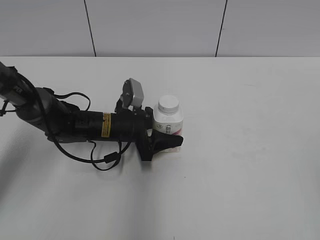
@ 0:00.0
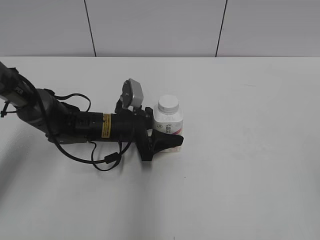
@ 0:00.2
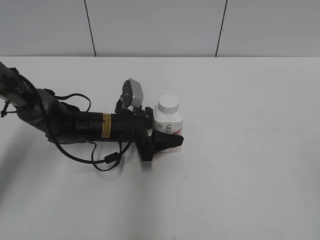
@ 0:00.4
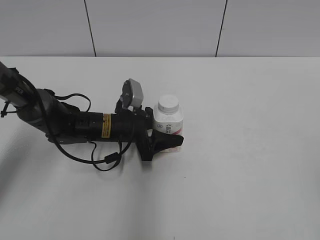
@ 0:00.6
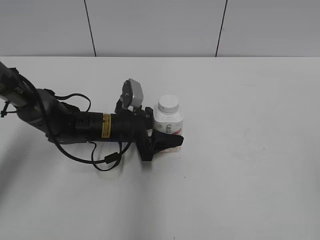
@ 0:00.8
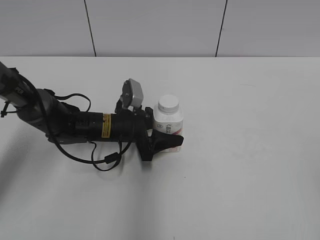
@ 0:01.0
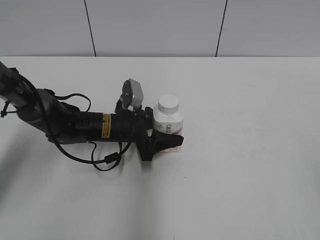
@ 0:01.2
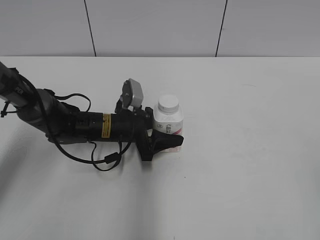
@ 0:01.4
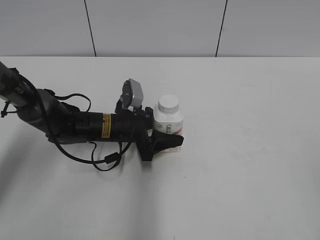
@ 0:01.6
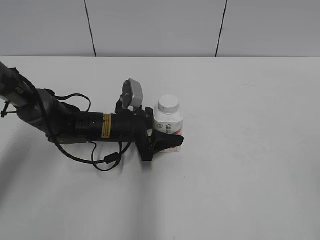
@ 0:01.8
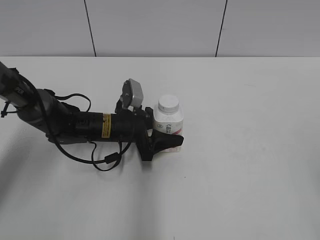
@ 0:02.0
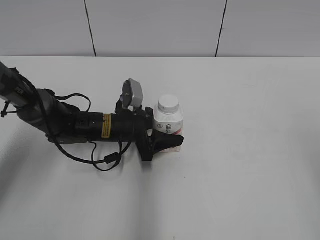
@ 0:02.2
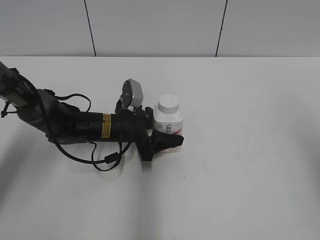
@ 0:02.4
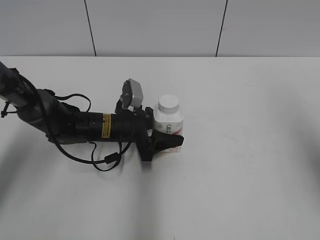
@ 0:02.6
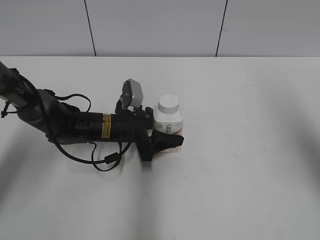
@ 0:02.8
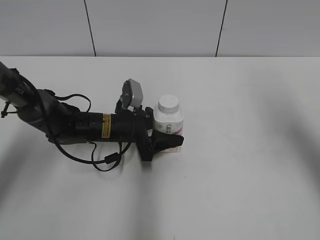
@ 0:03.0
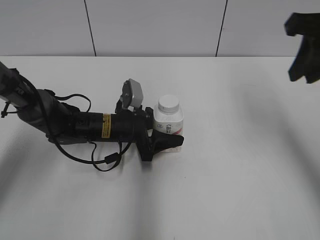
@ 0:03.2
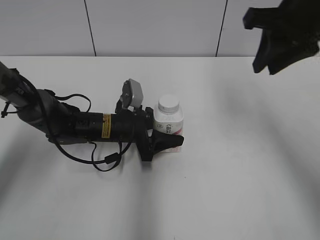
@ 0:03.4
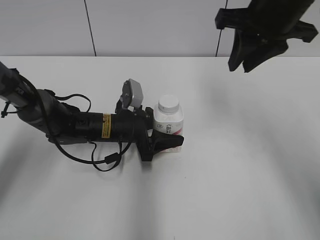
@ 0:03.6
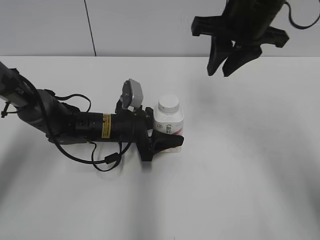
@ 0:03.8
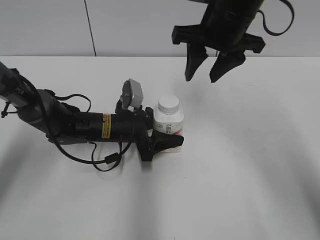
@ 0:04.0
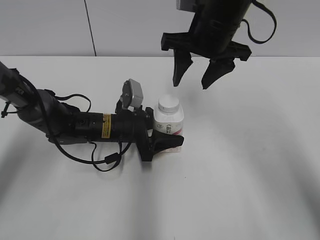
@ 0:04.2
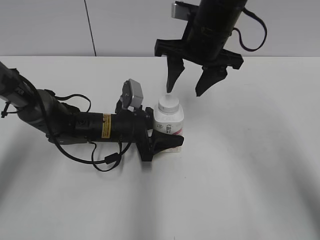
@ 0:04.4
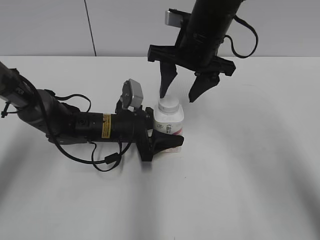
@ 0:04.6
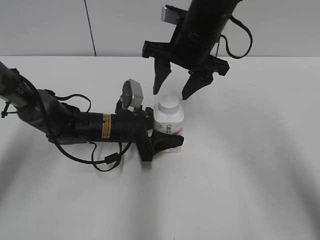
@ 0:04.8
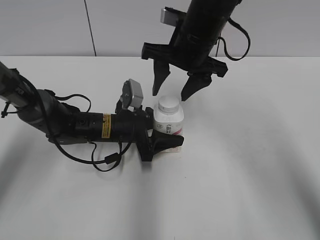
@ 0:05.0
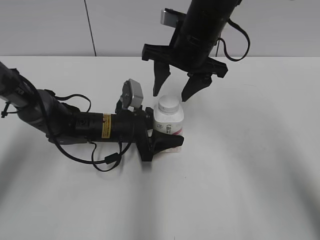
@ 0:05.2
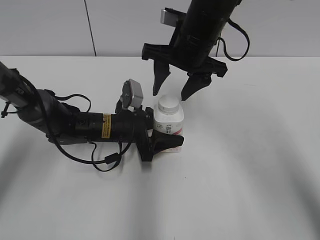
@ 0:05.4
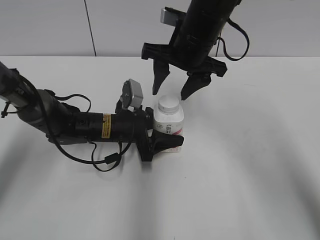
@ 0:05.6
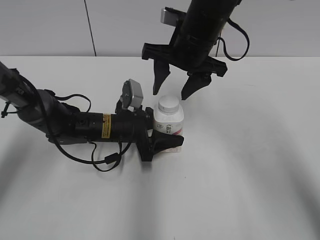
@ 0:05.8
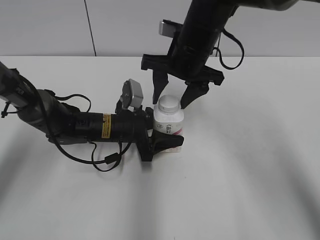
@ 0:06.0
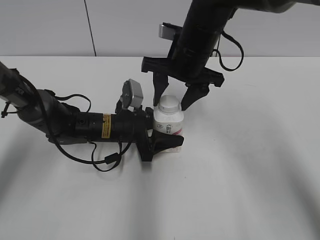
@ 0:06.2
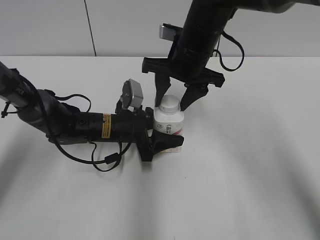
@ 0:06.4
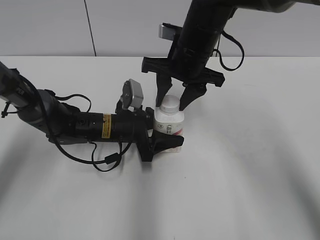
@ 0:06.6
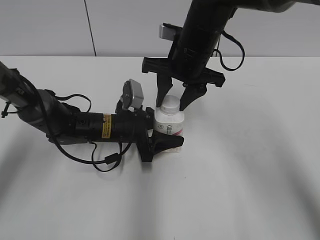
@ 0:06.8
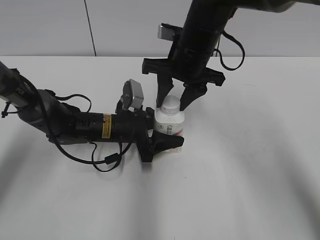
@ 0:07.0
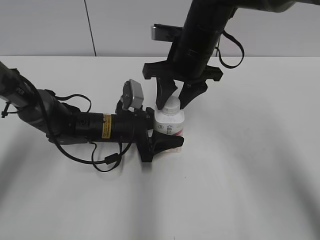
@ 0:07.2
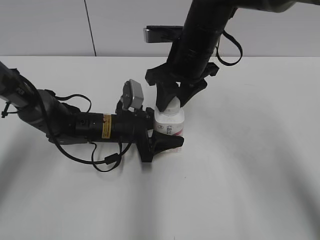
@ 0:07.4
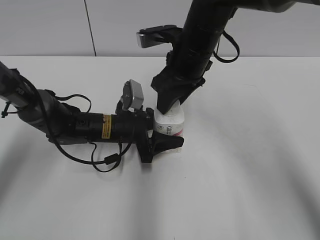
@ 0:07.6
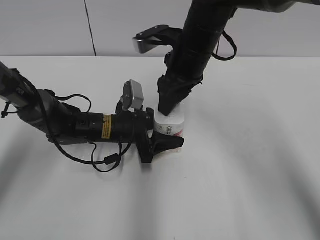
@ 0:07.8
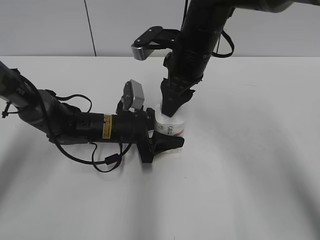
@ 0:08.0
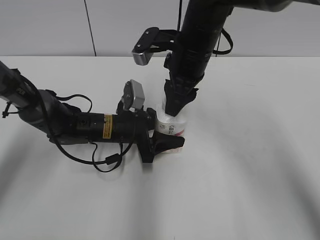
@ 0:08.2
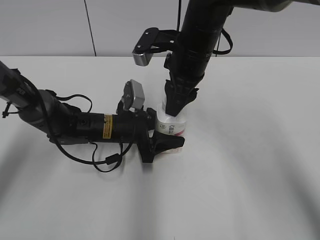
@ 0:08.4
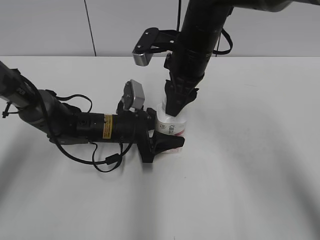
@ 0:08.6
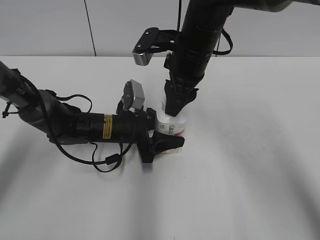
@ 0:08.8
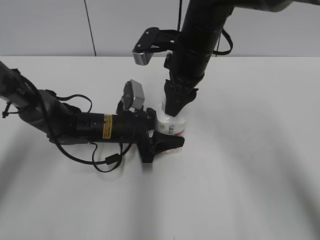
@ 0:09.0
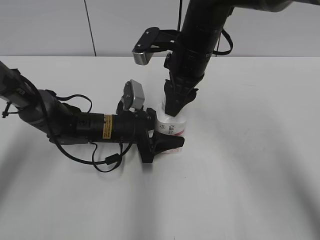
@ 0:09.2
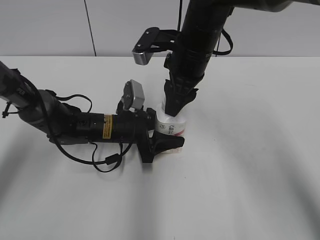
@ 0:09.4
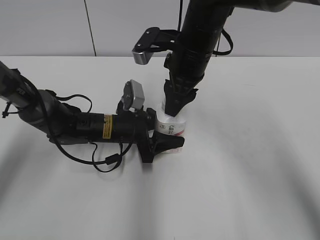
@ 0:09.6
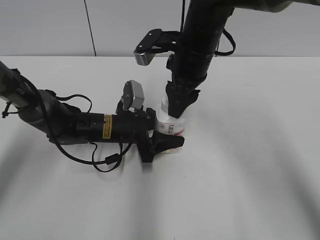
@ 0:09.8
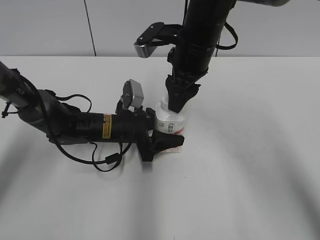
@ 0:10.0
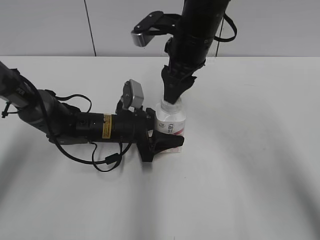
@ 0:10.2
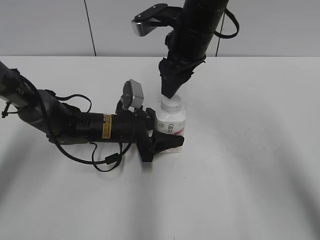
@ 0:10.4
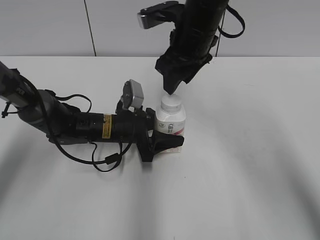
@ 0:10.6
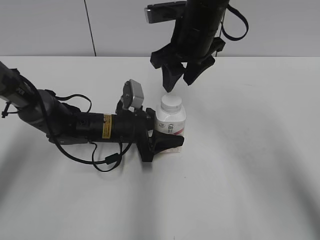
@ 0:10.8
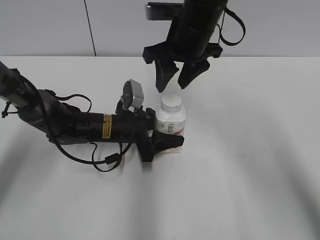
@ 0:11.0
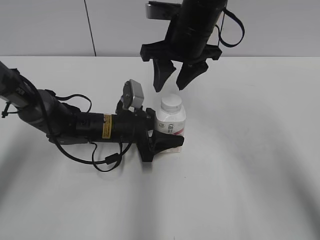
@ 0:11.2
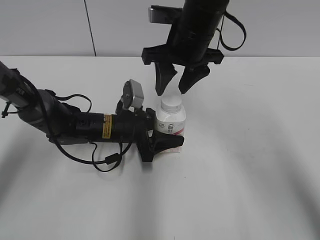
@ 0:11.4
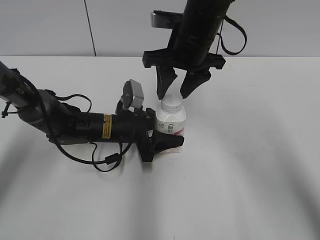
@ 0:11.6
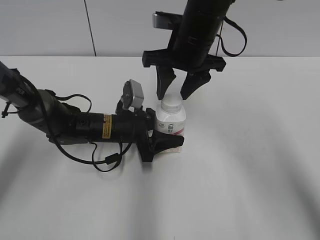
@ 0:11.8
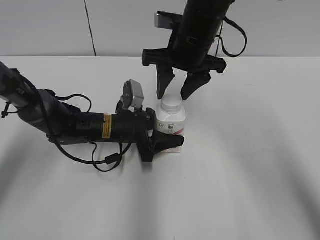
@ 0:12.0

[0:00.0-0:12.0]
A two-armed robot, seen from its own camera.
0:00.0 to 0:01.6: There are only small adjustments of the grippers.
0:01.6 to 0:03.0: The right gripper travels forward by roughly 25 cm, and closes.
0:03.0 to 0:04.4: The right gripper travels to the left, forward and downward by some 25 cm, and opens.
0:04.4 to 0:06.0: The grippers move only a little.
0:09.0 to 0:10.4: There are only small adjustments of the grippers.

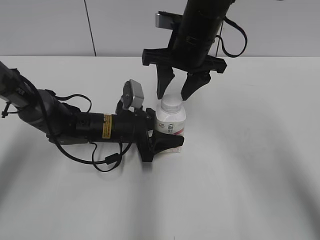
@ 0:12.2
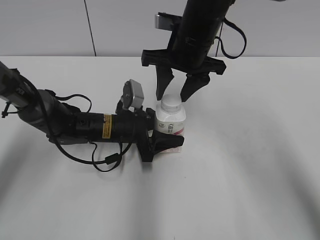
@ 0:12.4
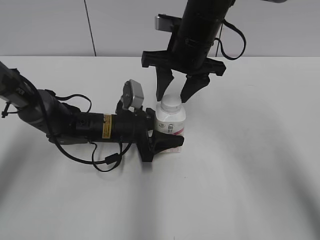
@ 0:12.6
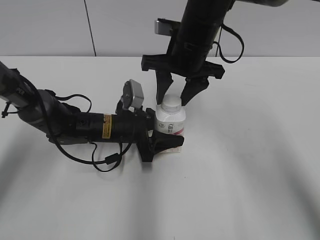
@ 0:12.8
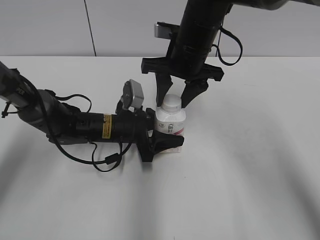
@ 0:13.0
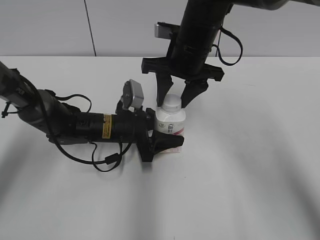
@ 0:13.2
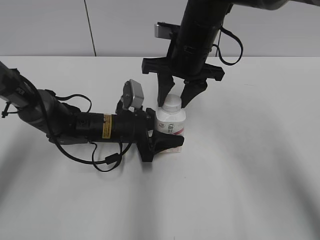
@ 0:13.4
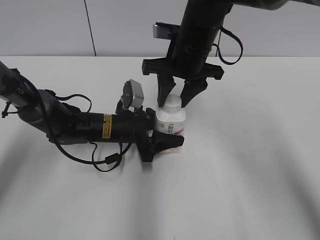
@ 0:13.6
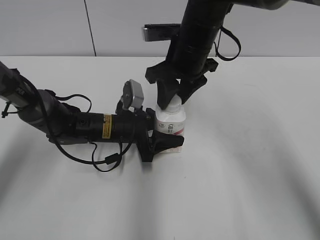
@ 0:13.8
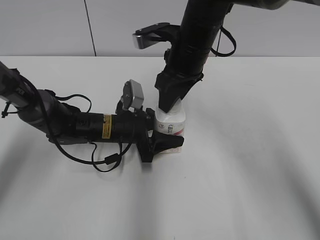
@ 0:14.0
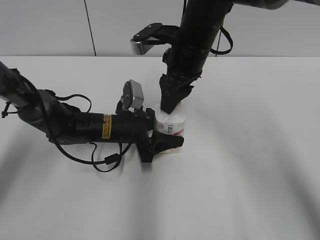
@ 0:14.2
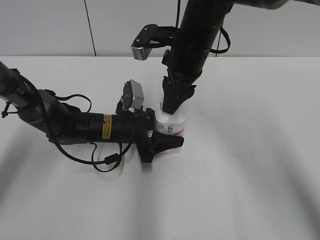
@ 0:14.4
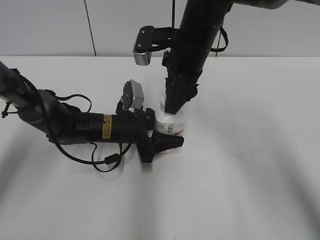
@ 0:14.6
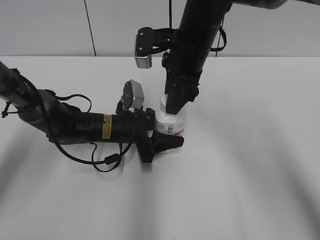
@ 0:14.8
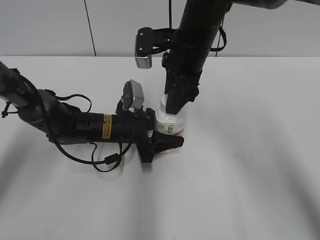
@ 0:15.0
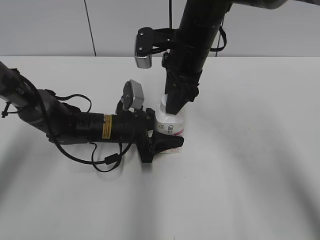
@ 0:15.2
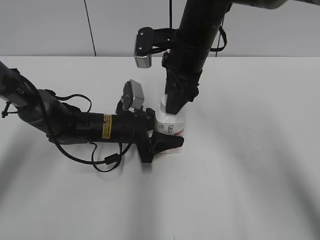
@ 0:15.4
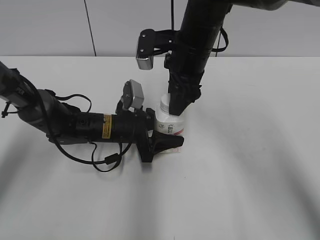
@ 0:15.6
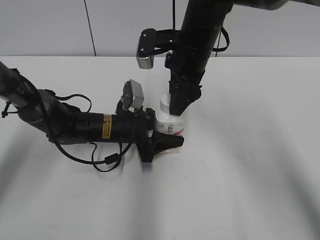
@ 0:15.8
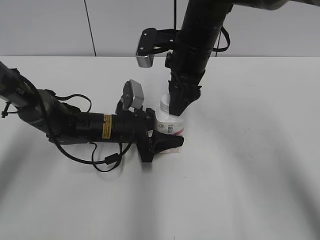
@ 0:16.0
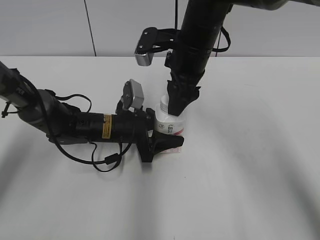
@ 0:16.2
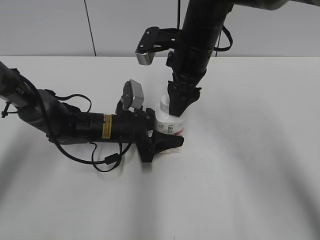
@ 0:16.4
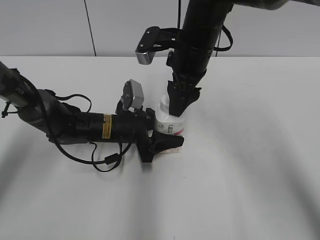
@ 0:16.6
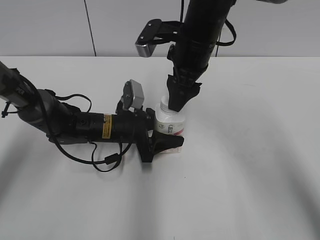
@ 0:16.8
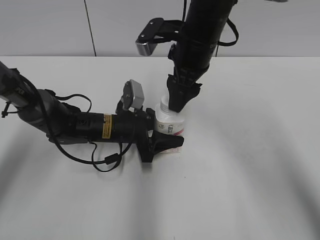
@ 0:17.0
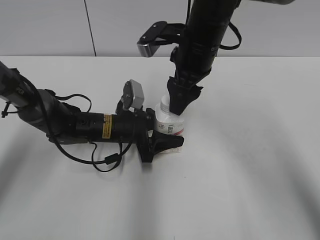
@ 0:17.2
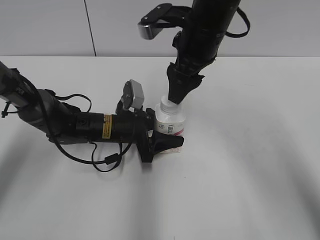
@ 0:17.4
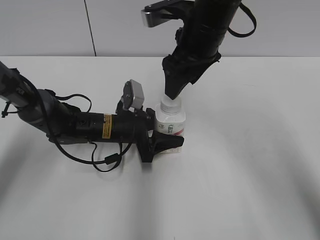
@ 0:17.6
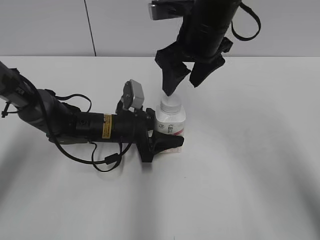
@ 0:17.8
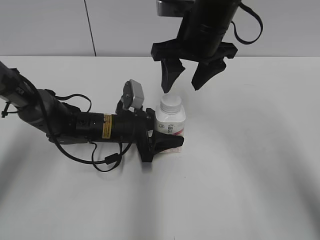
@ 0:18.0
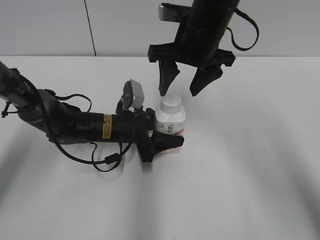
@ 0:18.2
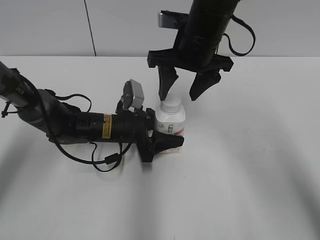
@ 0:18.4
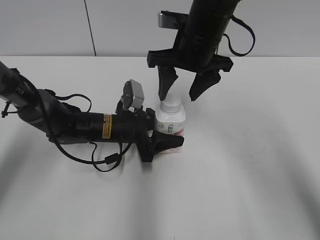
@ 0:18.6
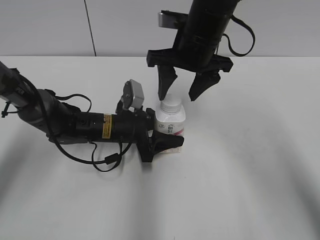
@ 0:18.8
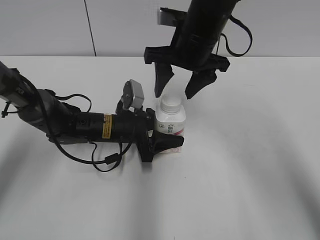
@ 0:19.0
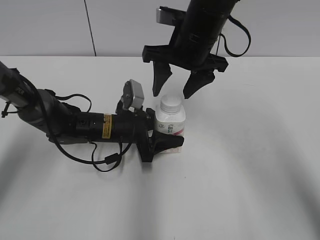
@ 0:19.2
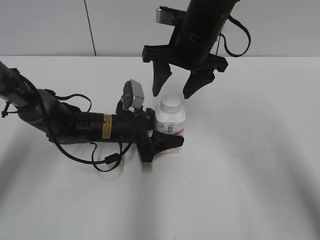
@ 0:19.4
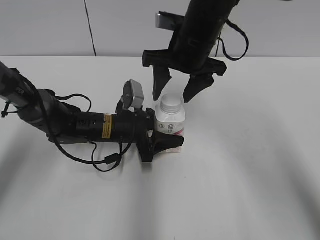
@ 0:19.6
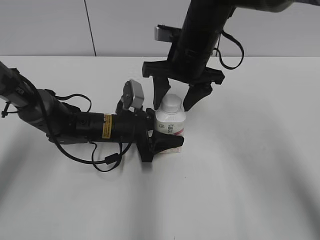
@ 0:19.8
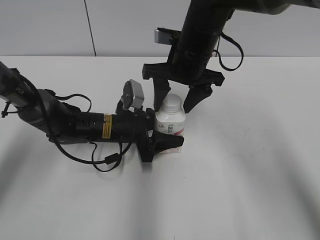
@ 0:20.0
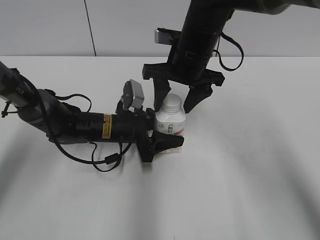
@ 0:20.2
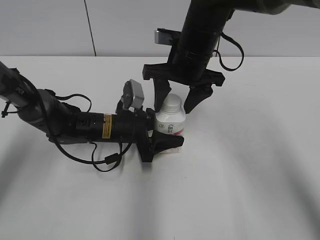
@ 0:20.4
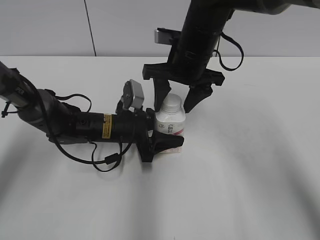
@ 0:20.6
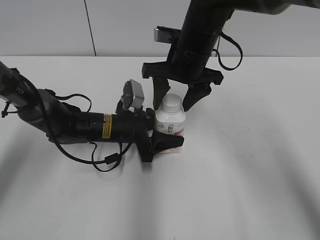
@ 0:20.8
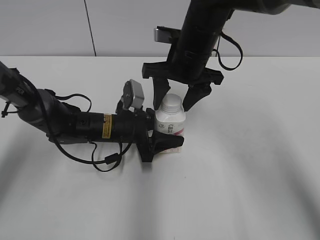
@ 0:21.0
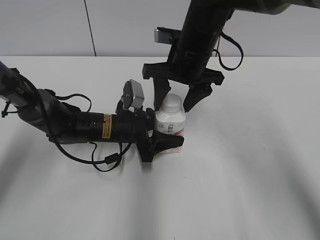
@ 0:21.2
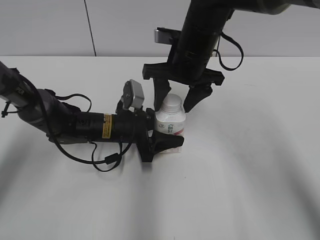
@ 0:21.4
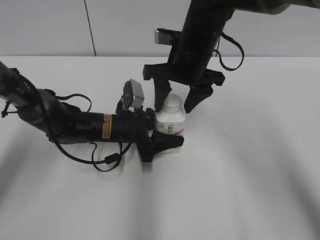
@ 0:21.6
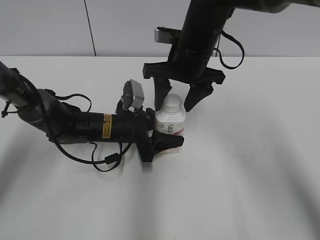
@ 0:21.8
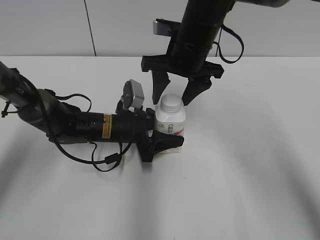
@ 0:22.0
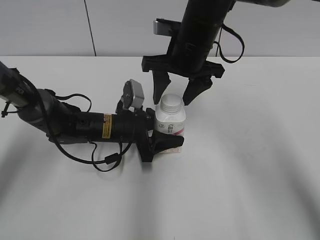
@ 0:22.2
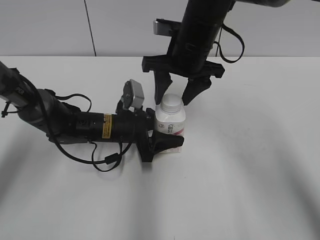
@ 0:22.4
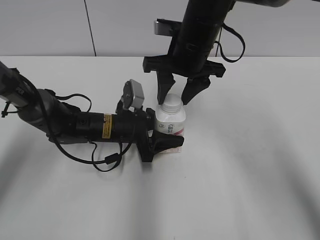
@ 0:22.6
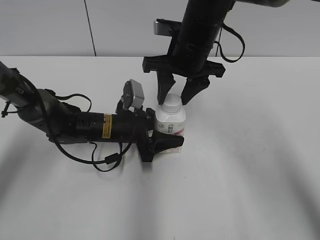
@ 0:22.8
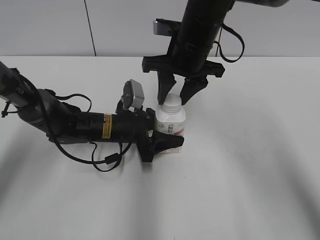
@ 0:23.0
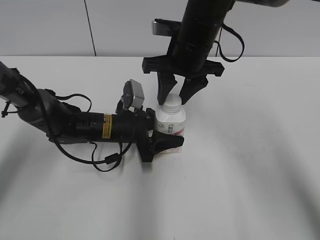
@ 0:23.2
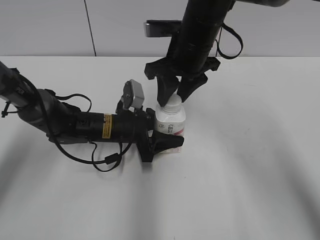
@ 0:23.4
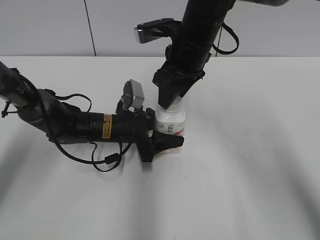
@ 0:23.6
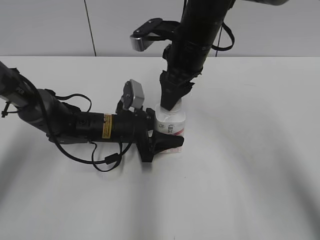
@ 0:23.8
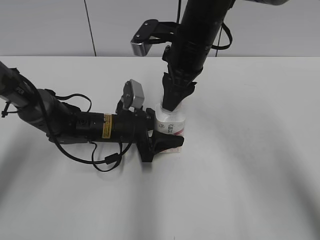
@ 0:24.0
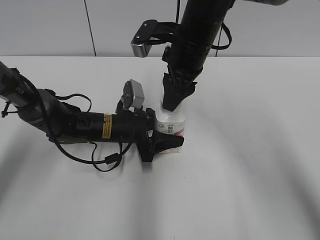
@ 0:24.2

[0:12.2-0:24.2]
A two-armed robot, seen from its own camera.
0:15.2 to 0:16.6: The right gripper opens its fingers.
0:18.2 to 0:19.8: The grippers stay close to where they were, moving slightly.
0:19.8 to 0:22.6: The two grippers keep their place.
